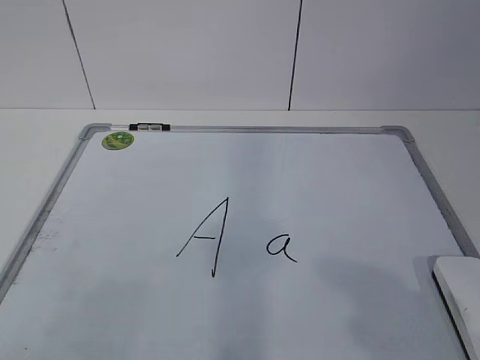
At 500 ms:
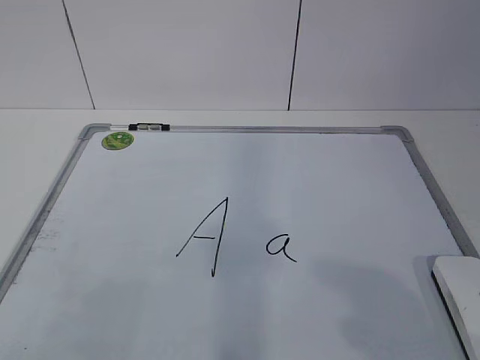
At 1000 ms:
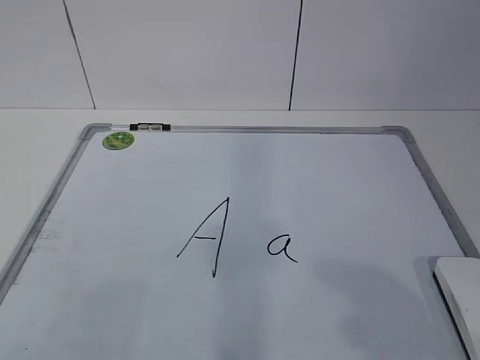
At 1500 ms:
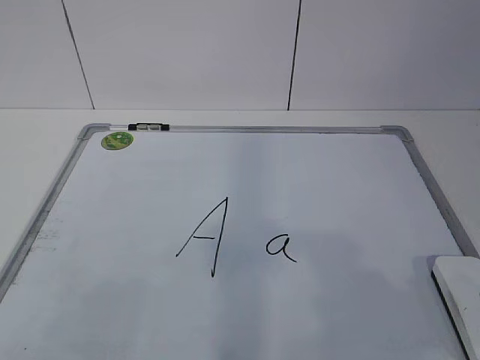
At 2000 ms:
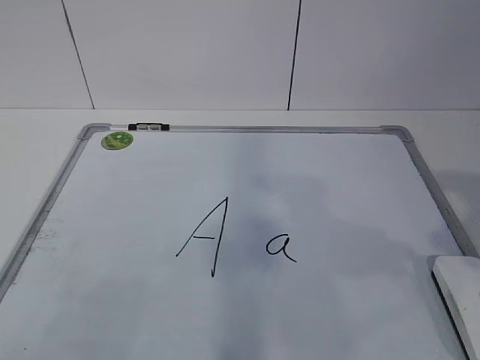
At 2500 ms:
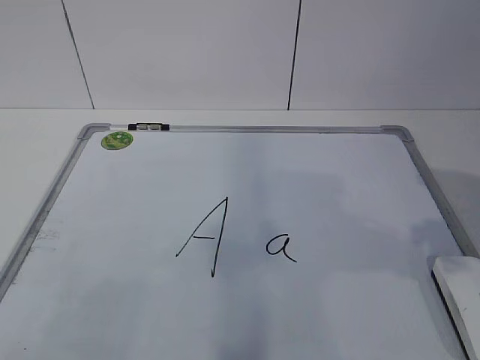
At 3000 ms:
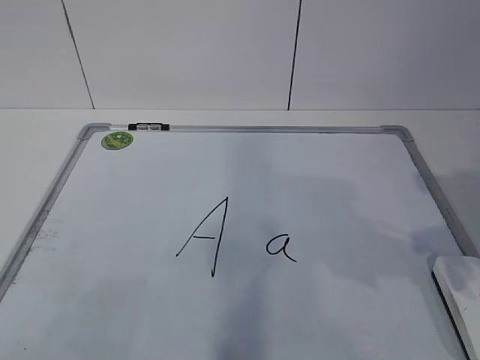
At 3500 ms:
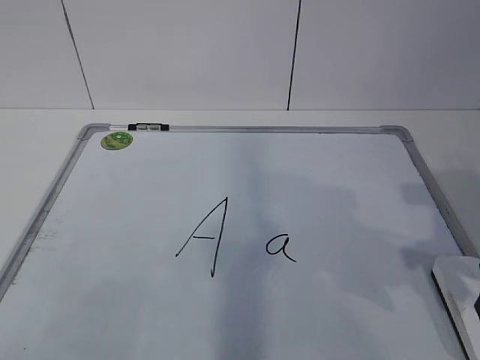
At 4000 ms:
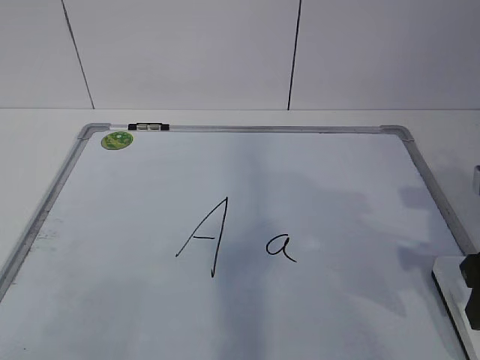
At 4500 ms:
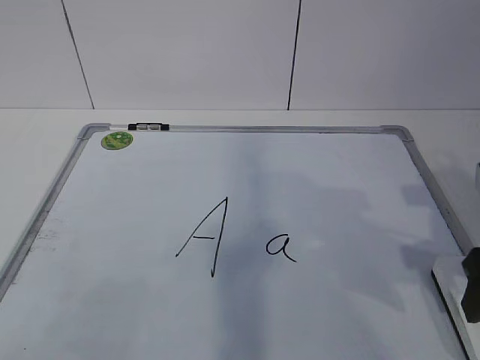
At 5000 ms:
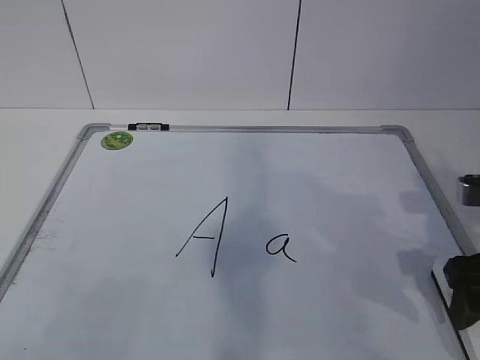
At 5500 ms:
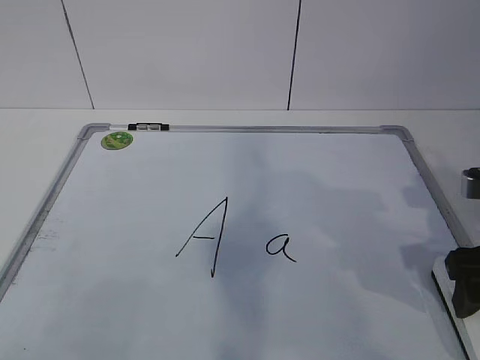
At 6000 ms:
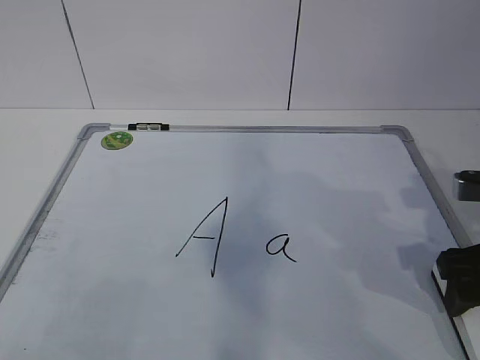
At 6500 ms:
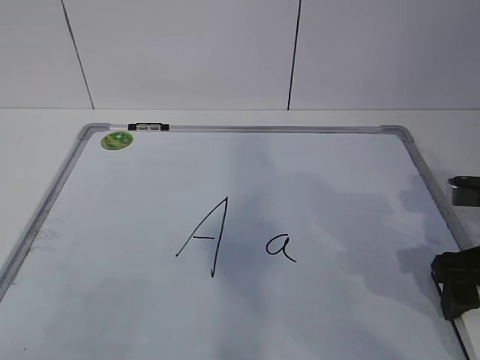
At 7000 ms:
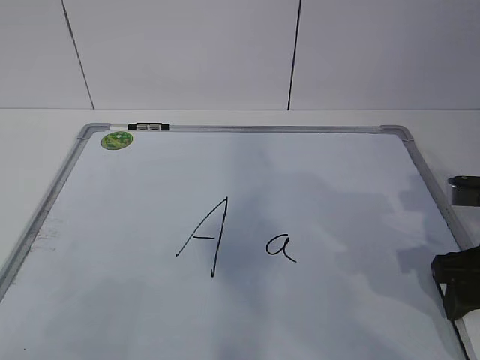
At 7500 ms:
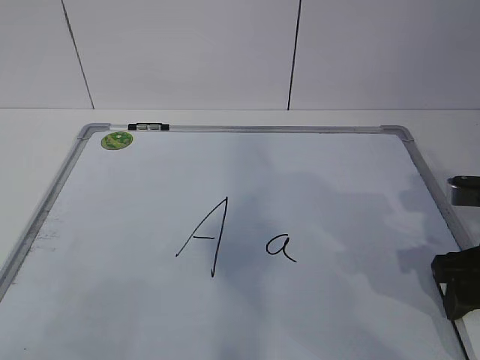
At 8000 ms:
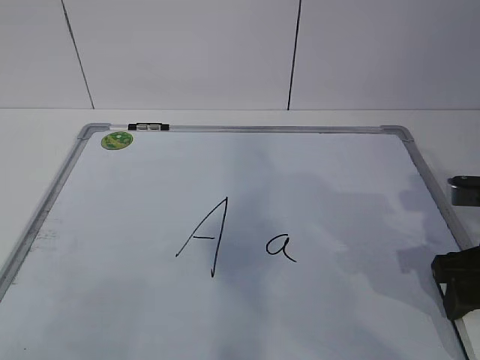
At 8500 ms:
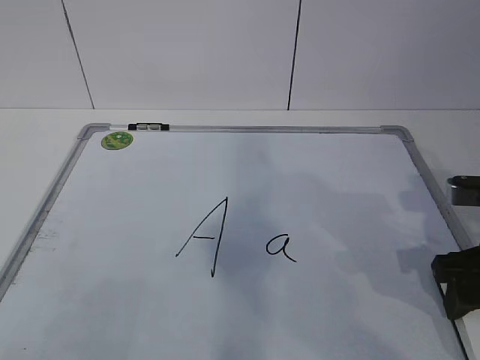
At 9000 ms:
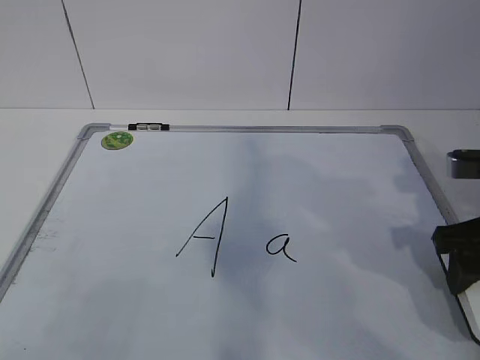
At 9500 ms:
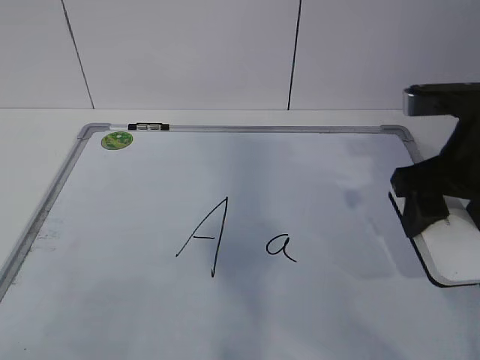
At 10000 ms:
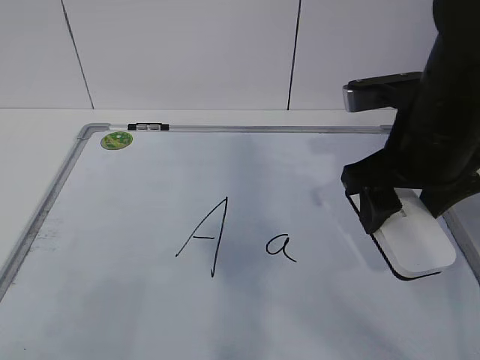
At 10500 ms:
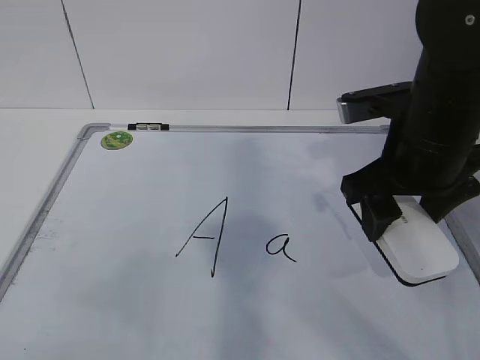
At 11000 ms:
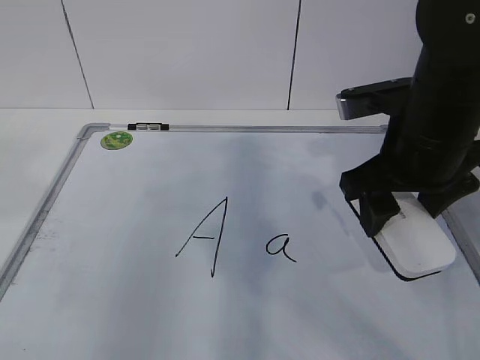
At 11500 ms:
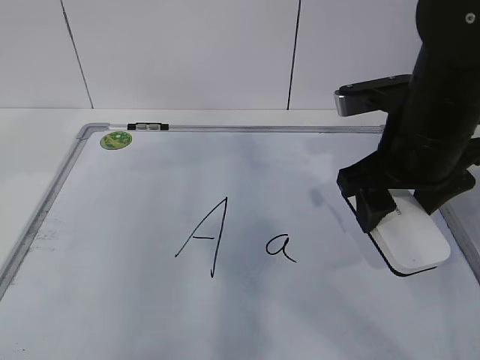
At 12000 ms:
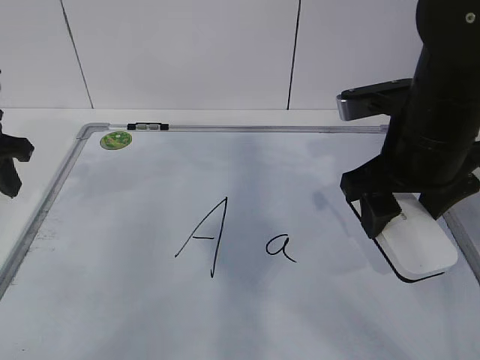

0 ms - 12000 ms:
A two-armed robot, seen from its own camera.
Task of the whole recording: pick up the eraser on the blackboard and erase the letter "a".
Step, 0 ms - 6000 ms: Grab the eraser with your right hand.
2000 ms - 4000 ms: The right gripper moves forward and downward, some 15 cm.
4000 ms - 6000 ms: The right gripper opens.
6000 ms - 8000 ms: The right gripper closes.
8000 ms - 10000 ms: The right gripper is displaced to the left and upward by some 15 cm.
10000 ms - 12000 ms: The left gripper is displaced forward by some 35 cm.

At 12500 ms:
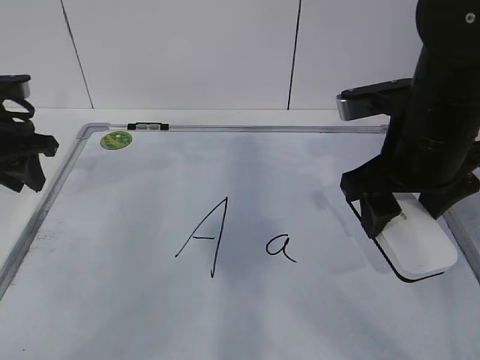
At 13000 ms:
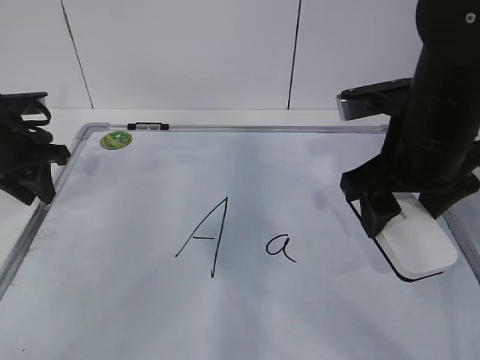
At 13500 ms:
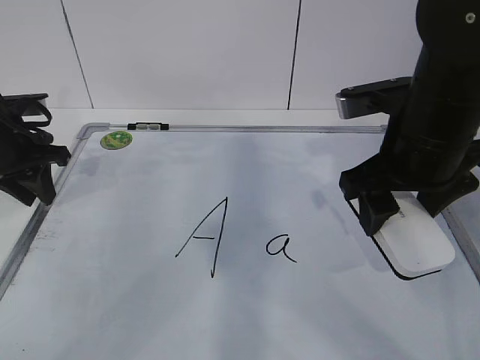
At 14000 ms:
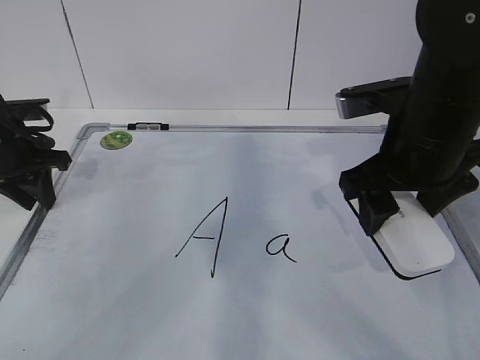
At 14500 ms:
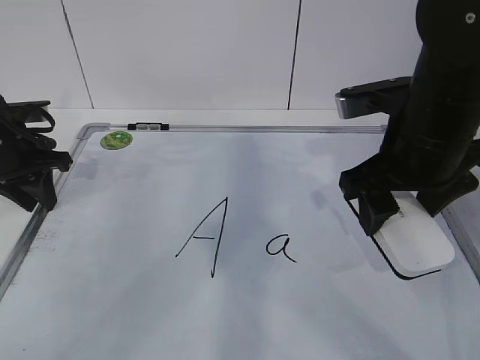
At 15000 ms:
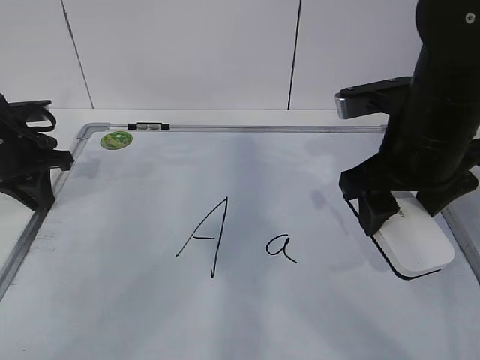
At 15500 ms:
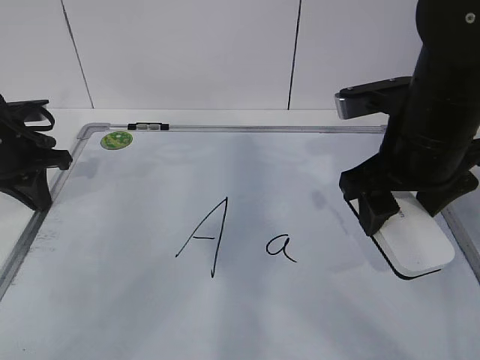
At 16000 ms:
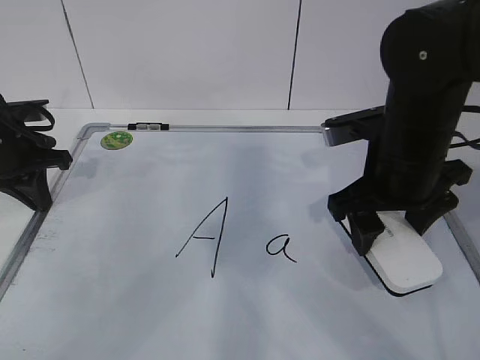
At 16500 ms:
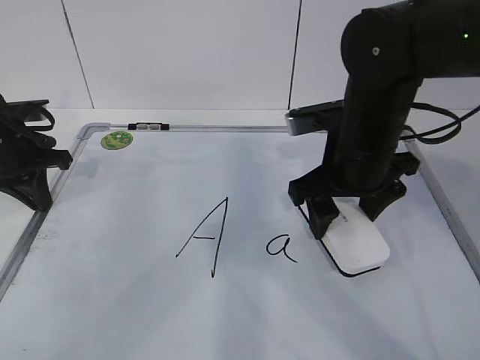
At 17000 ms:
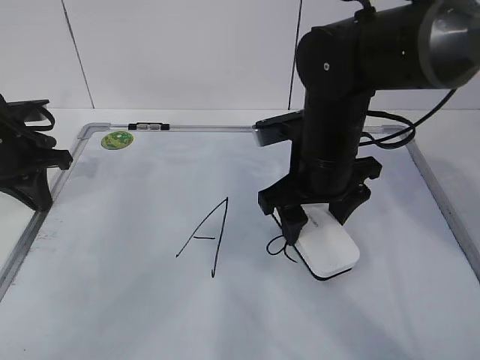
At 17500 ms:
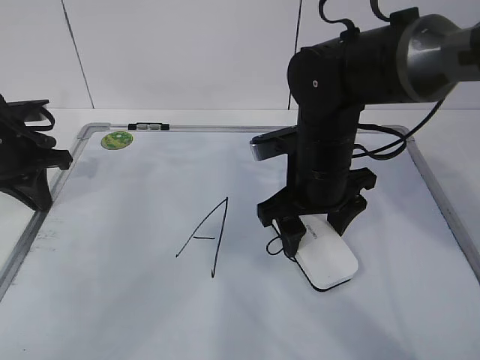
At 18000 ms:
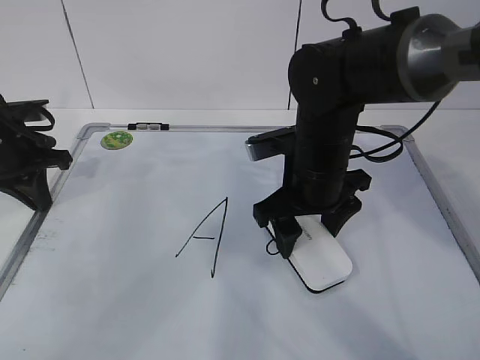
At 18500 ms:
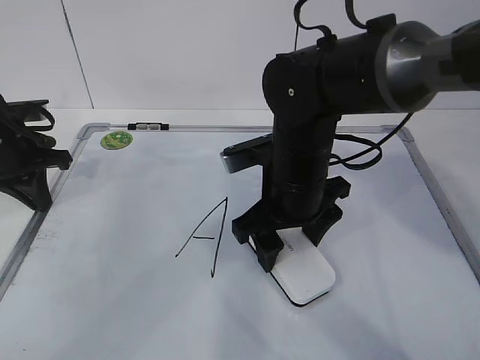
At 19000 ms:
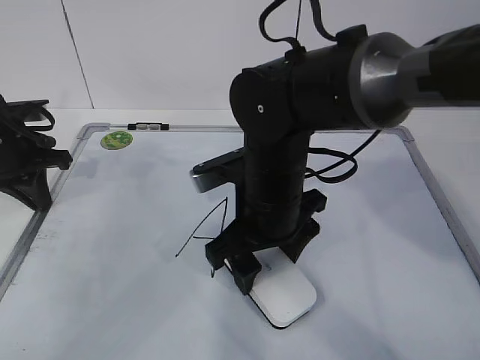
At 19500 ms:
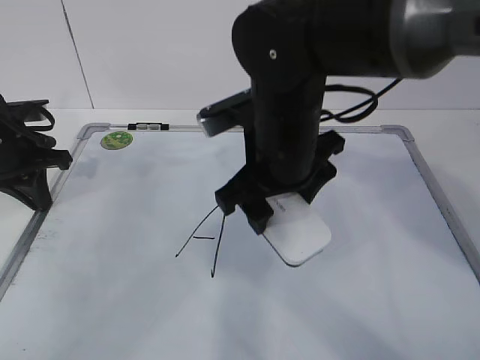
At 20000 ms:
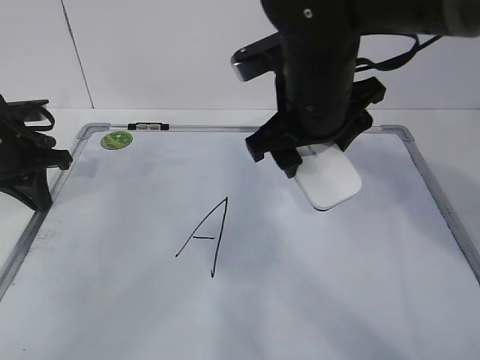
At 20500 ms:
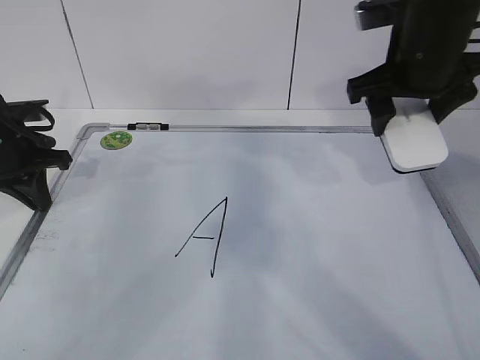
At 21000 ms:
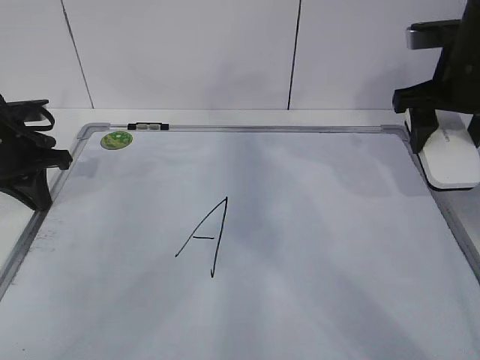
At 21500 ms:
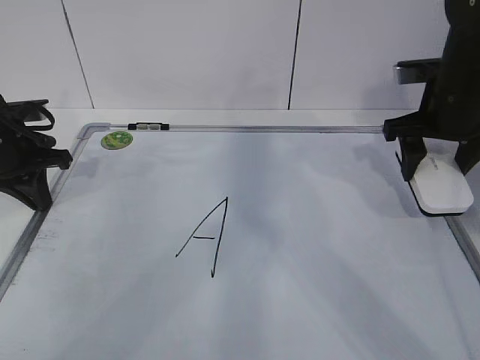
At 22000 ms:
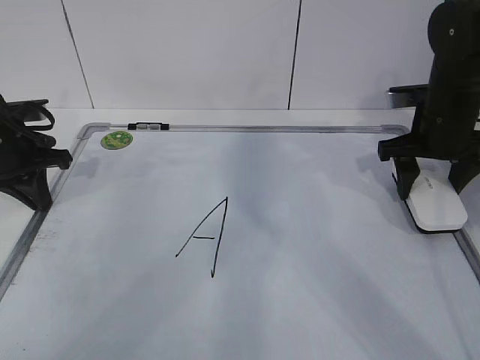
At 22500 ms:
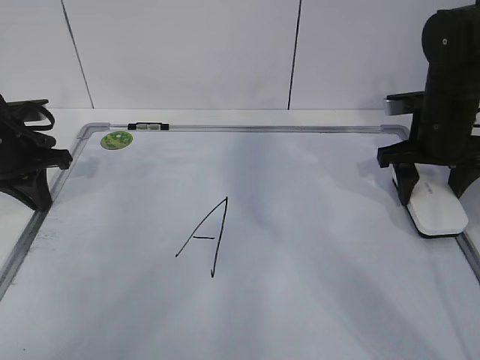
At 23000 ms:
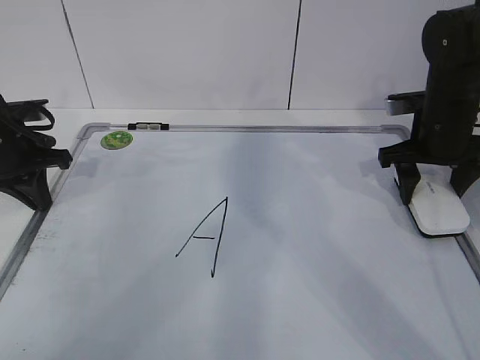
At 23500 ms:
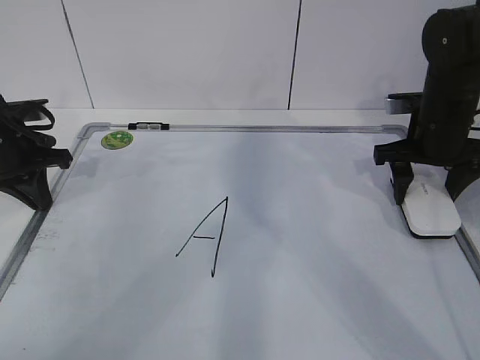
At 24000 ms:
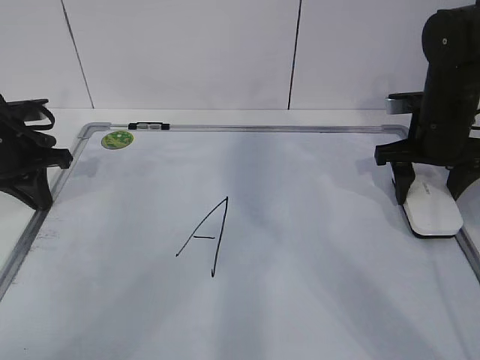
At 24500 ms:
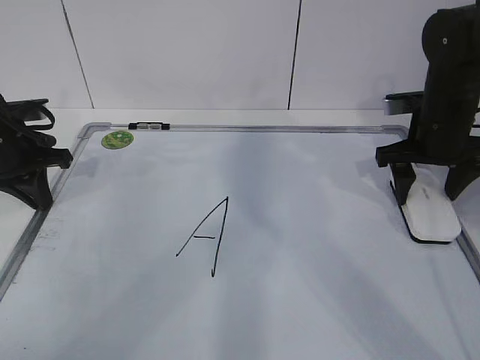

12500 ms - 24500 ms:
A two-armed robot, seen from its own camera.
Task of the whole recording: pick up the eraser on the blackboard and erase the letter "a".
Step, 16000 ms - 20000 ms: Put down the eraser with your right hand.
12500 ms - 14500 ms: The grippers make only small movements.
14500 ms - 16500 ms: The right gripper changes place by roughly 5 cm, while the left gripper closes up.
16500 ms - 18500 ms: The right gripper is displaced to the left by approximately 5 cm.
18500 ms - 20500 ms: The right gripper travels to the right and upward by roughly 15 cm.
20500 ms - 22500 ms: The right gripper travels downward and to the right by approximately 15 cm.
22500 ms - 24500 ms: Both grippers stay put.

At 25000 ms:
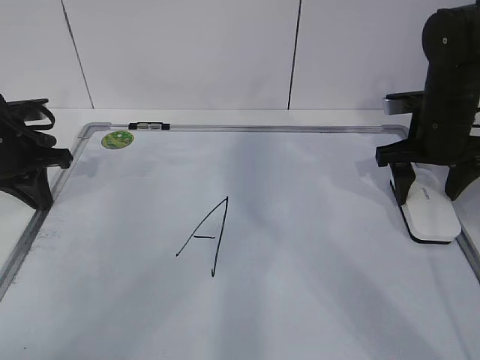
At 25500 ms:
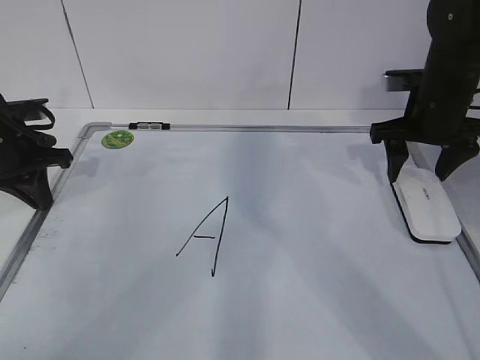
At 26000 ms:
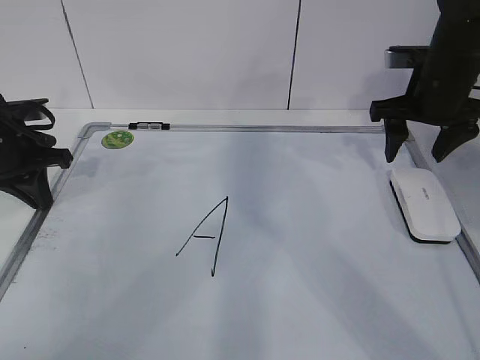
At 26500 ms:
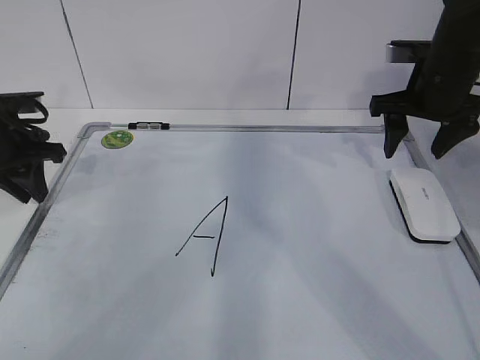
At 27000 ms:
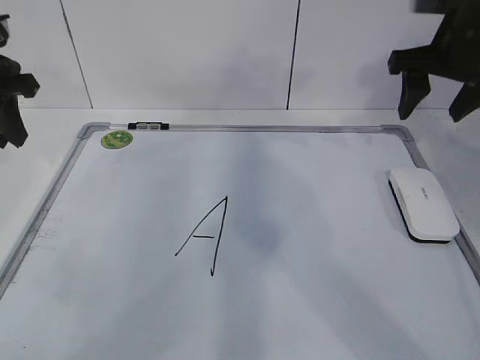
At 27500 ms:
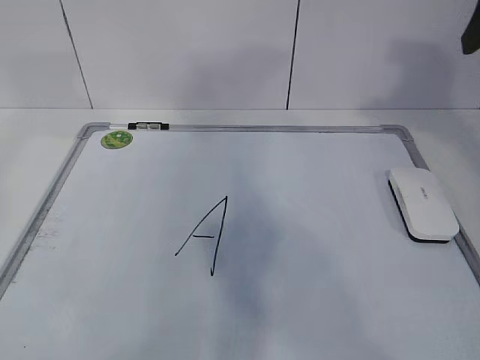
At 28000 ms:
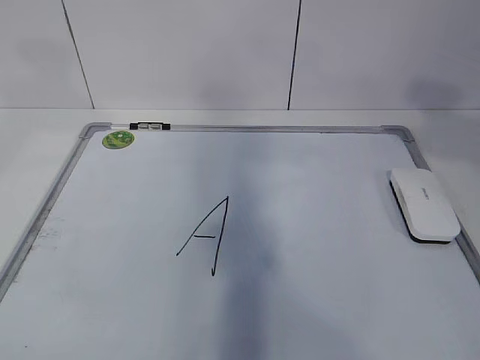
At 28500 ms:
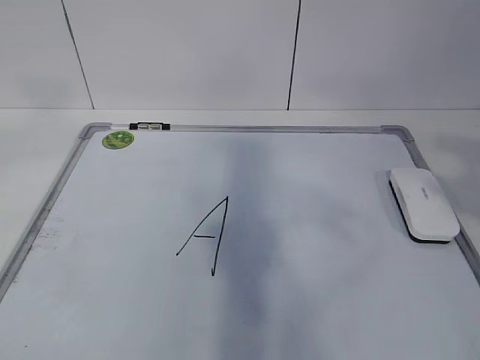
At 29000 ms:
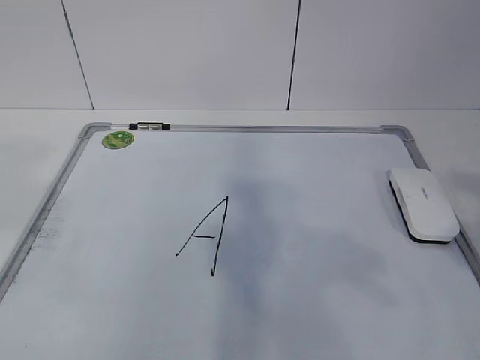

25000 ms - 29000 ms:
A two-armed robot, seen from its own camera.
Task of the whole recording: pick up the eraser on the blackboard and erase the letter "a".
25000 ms - 27000 ms: The two grippers go roughly 10 cm upward. The left gripper opens its fingers.
27000 ms - 29000 ms: The right gripper is displaced backward by roughly 35 cm, while the left gripper travels backward and upward by about 35 cm.
